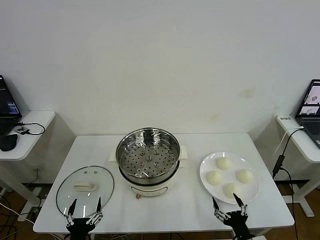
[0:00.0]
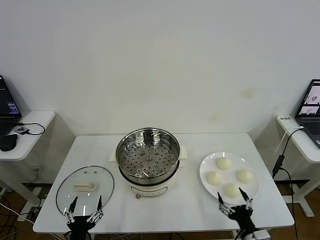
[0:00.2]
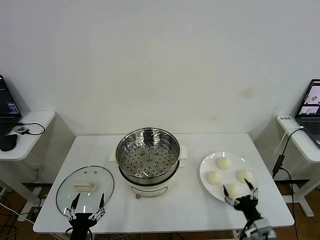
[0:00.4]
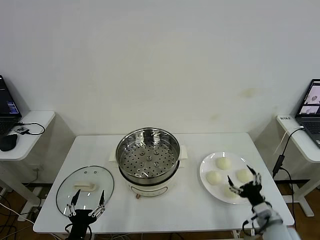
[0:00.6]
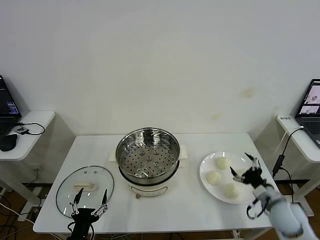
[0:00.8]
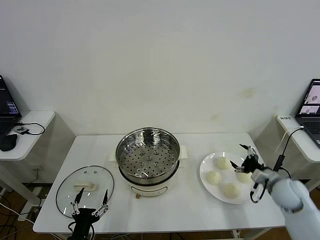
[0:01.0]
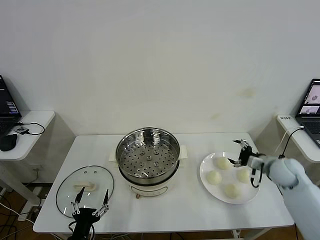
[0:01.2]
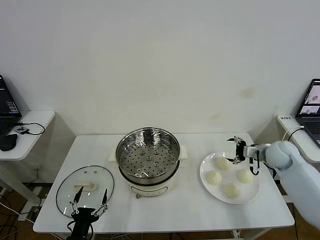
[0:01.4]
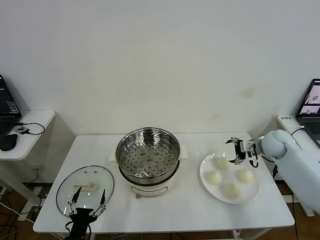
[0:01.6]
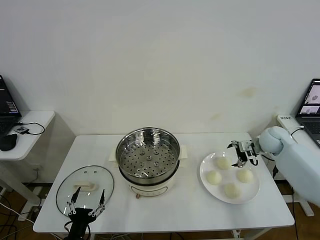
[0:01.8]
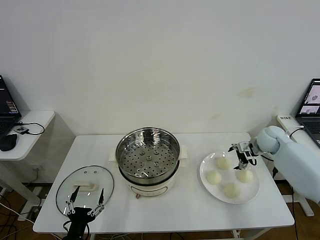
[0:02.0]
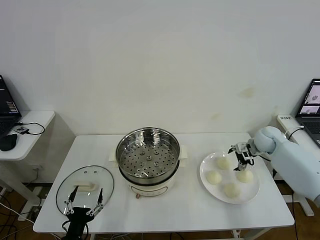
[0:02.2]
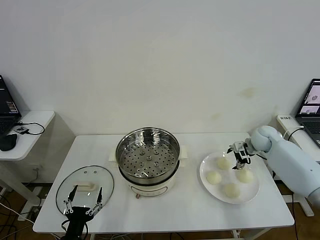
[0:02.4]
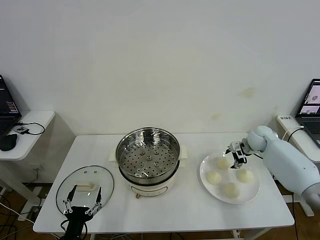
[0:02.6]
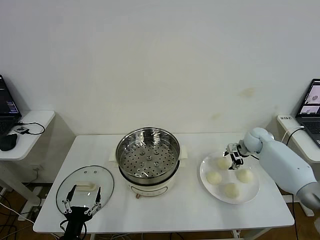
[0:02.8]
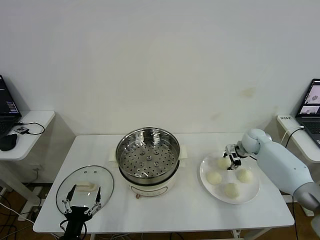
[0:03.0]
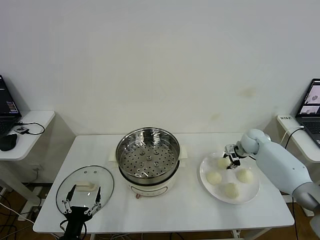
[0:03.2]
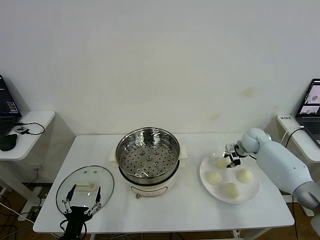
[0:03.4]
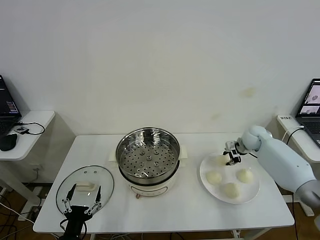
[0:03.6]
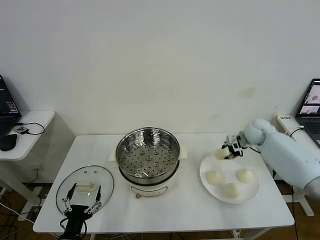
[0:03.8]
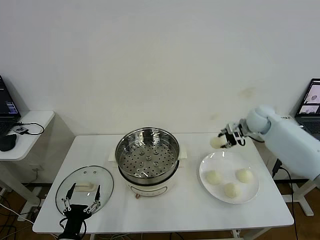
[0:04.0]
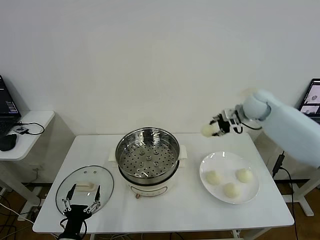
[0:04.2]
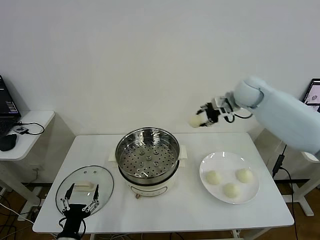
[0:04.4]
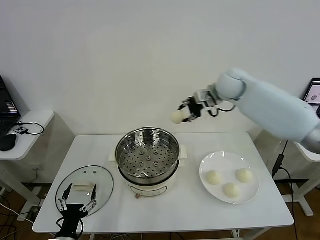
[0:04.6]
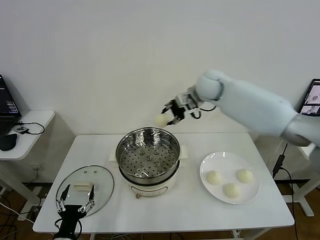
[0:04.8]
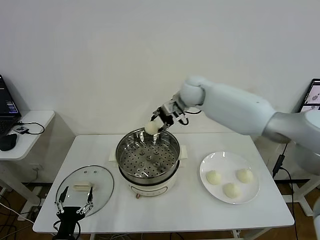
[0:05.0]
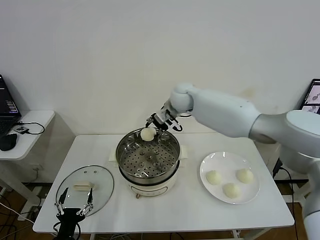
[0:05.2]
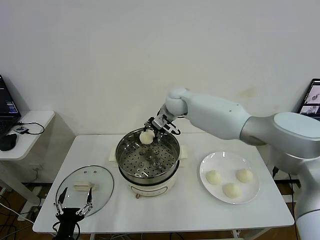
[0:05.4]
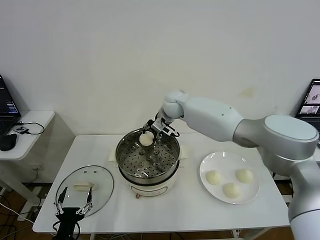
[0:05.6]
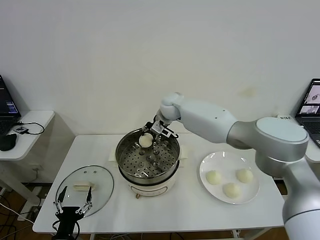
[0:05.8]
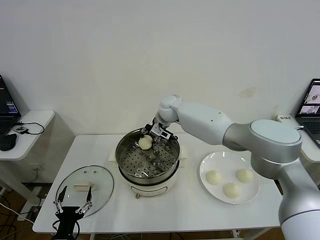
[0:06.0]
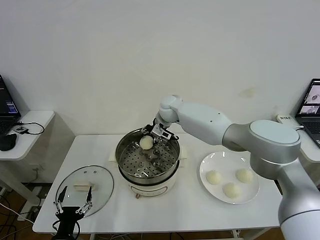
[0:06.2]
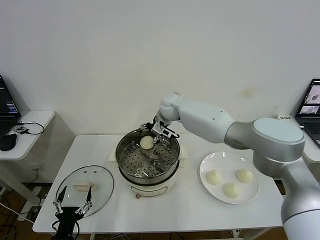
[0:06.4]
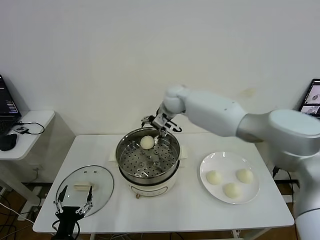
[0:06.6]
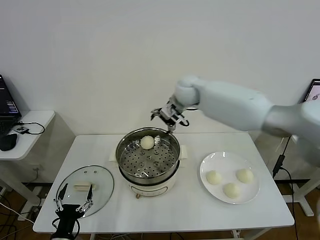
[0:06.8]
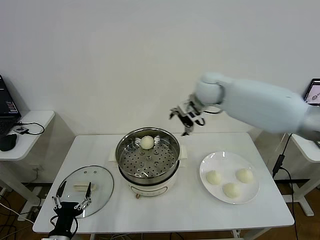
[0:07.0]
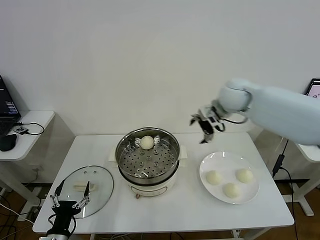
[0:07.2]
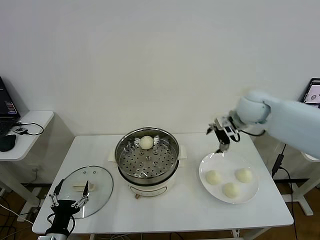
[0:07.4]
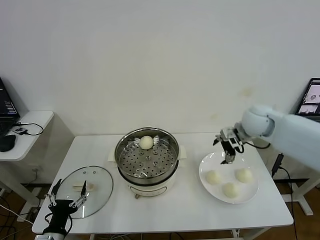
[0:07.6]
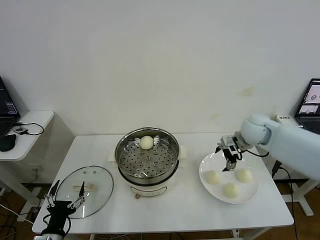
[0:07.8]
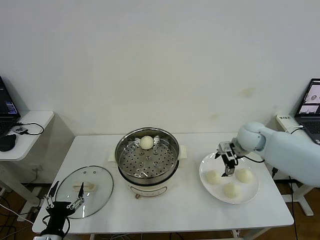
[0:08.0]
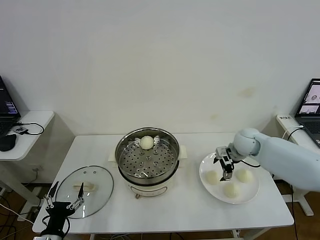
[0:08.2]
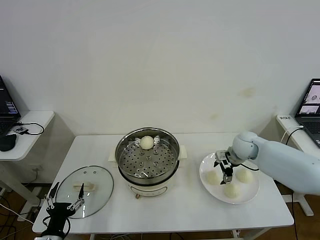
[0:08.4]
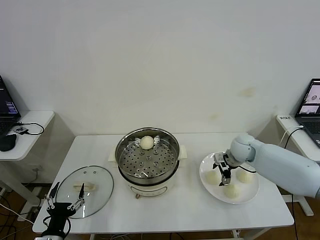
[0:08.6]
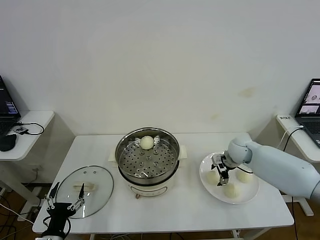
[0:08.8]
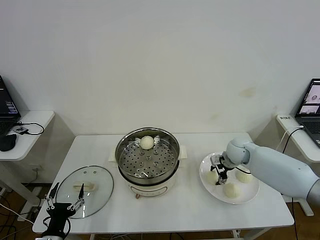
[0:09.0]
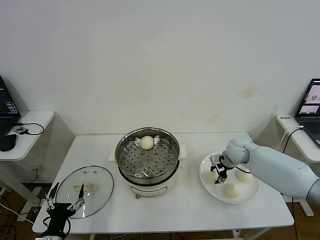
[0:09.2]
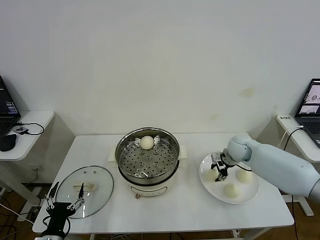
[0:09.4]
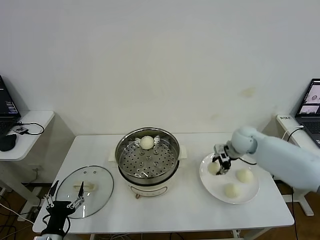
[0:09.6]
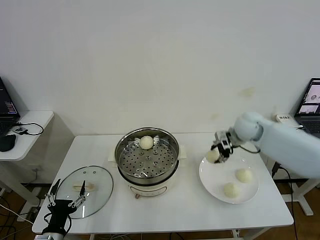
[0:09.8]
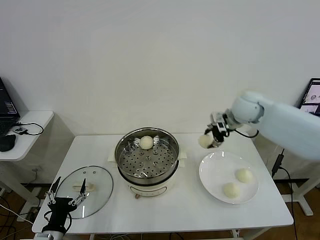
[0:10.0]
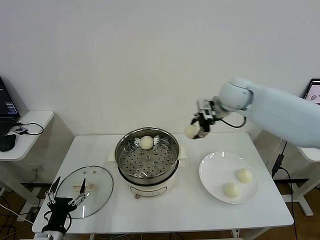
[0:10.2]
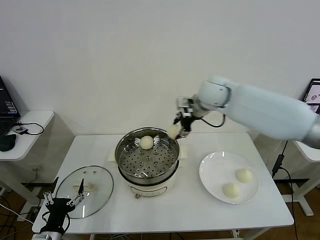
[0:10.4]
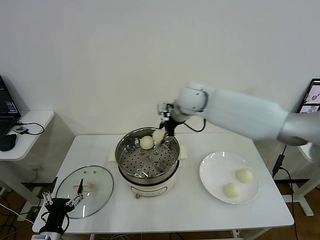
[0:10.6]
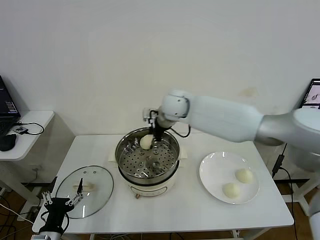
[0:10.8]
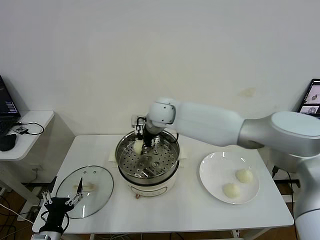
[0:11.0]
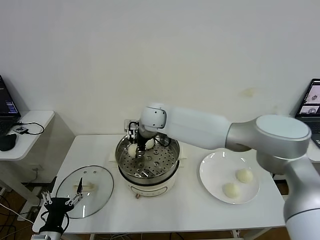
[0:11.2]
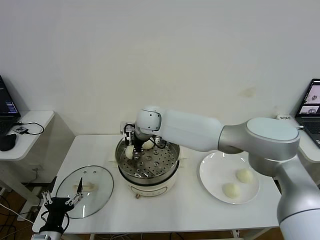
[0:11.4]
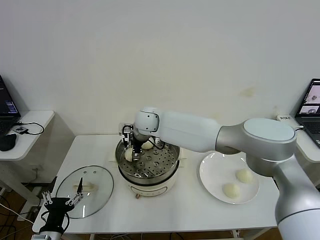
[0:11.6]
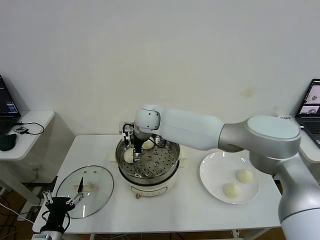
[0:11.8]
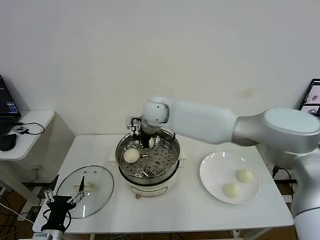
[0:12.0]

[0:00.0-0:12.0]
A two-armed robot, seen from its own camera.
Step, 0:00.0 to 0:03.4: Grasp the baozi in the plate with right gripper.
Step, 0:03.6 to 0:06.2: Place the baozi on the steamer with right gripper.
Step, 0:06.4 to 0:09.2: Grasp the baozi in the plate with right gripper.
Step, 0:09.4 to 0:11.6: Place the baozi on the steamer with right gripper.
0:01.6 to 0:03.0: The right gripper moves downward and forward, about 10 cm, and closes its fingers.
0:03.0 to 0:04.4: The right gripper travels upward and to the left by about 25 cm.
0:04.4 to 0:06.0: The right gripper travels to the left and downward by about 25 cm.
0:06.0 to 0:07.6: The right gripper is displaced to the right and backward by approximately 30 cm, and opens its fingers.
0:07.6 to 0:09.0: The right gripper goes some 15 cm downward, and closes up.
0:09.0 to 0:10.4: The right gripper shifts some 30 cm upward and to the left.
0:10.4 to 0:12.0: The right gripper is displaced to the left by about 15 cm, and opens.

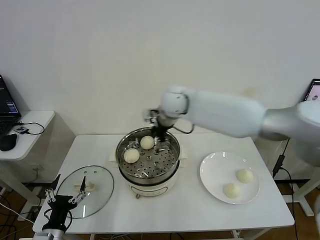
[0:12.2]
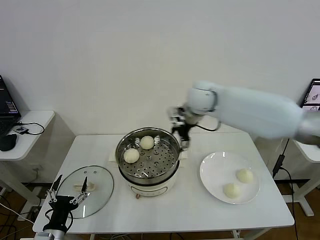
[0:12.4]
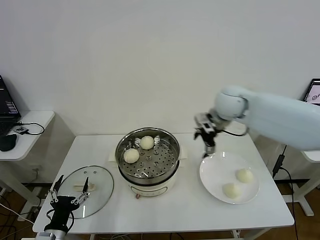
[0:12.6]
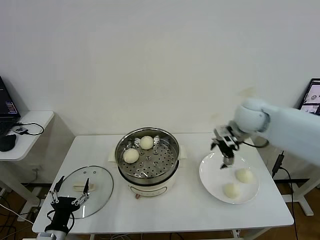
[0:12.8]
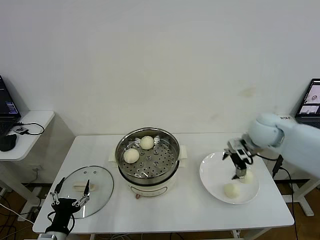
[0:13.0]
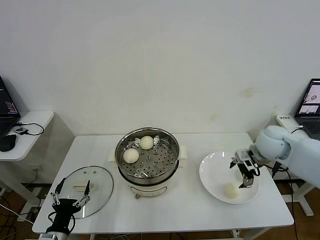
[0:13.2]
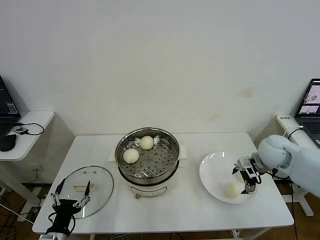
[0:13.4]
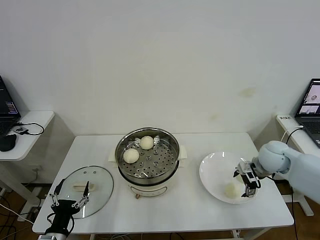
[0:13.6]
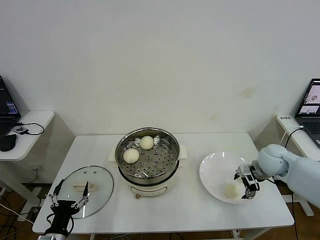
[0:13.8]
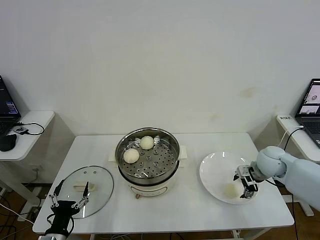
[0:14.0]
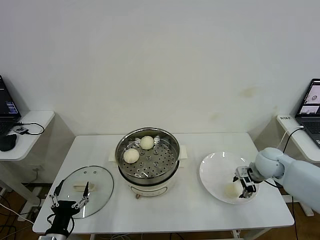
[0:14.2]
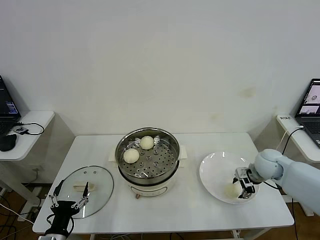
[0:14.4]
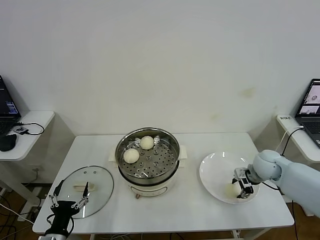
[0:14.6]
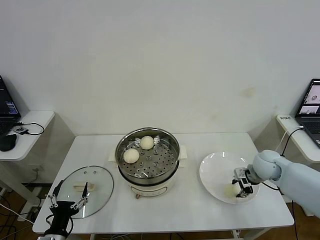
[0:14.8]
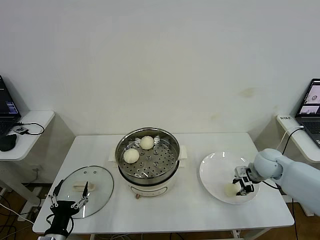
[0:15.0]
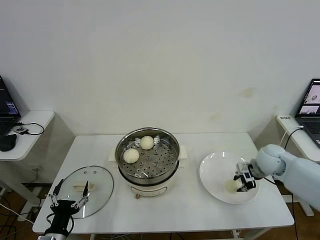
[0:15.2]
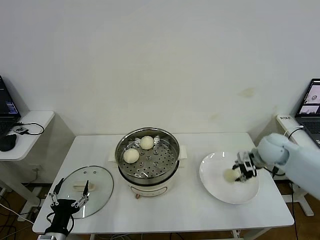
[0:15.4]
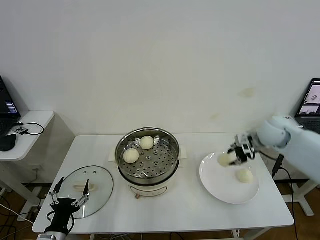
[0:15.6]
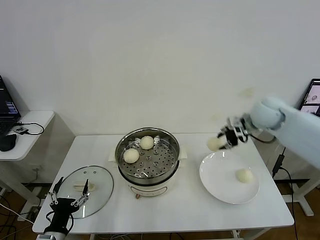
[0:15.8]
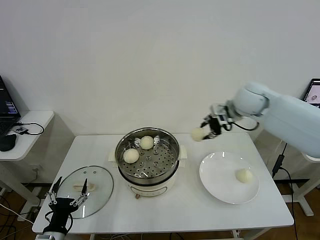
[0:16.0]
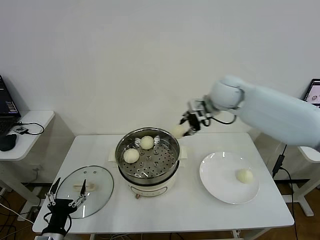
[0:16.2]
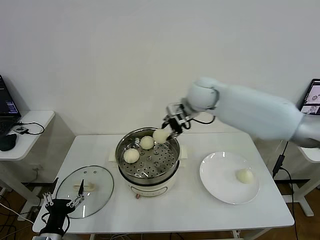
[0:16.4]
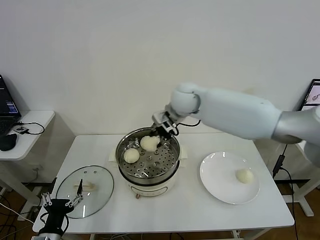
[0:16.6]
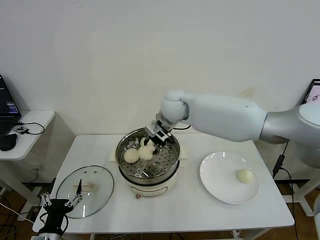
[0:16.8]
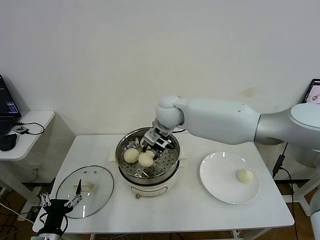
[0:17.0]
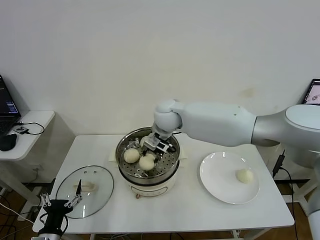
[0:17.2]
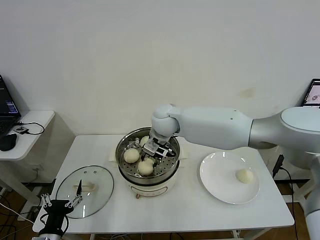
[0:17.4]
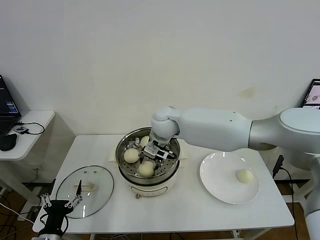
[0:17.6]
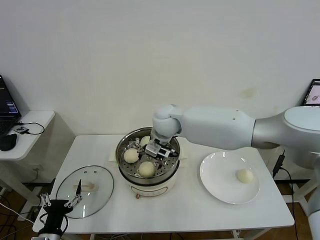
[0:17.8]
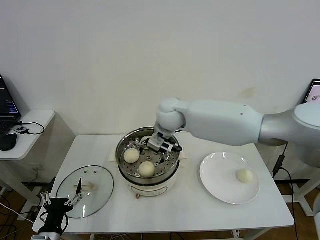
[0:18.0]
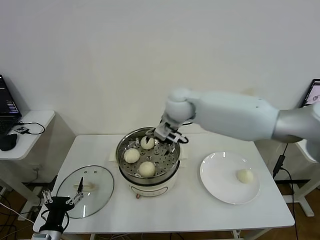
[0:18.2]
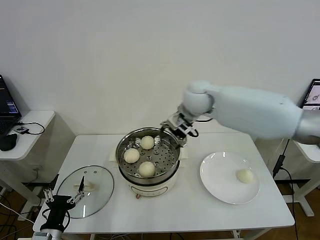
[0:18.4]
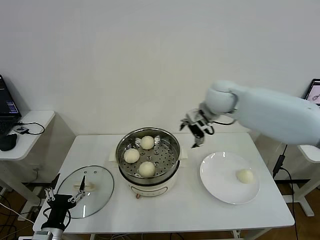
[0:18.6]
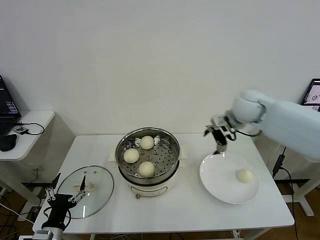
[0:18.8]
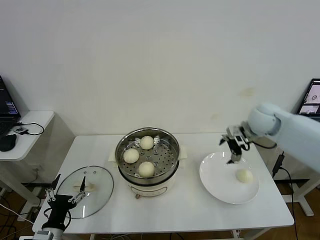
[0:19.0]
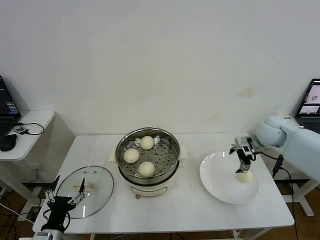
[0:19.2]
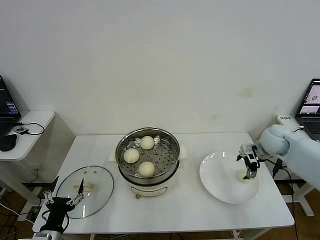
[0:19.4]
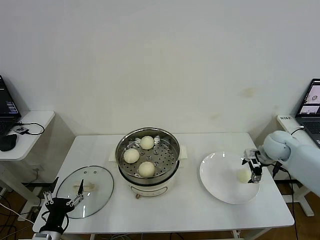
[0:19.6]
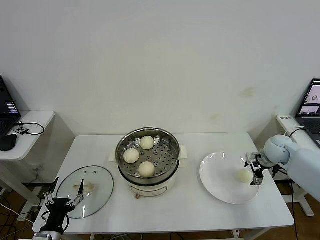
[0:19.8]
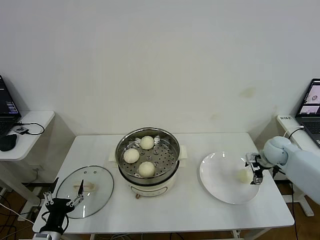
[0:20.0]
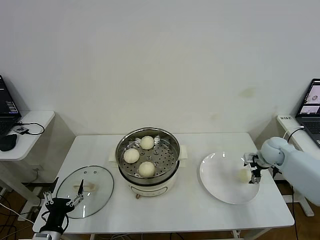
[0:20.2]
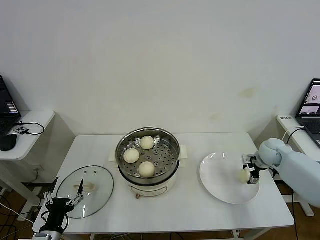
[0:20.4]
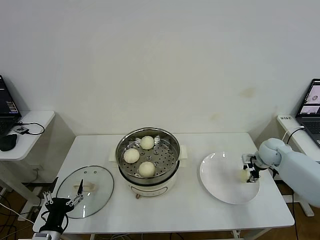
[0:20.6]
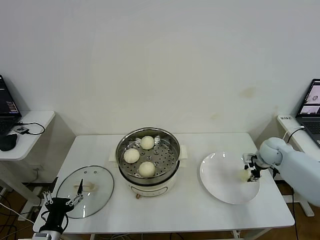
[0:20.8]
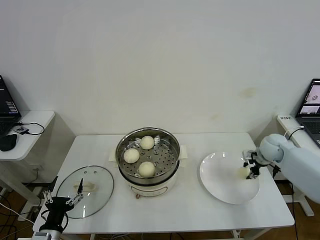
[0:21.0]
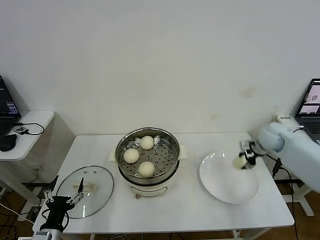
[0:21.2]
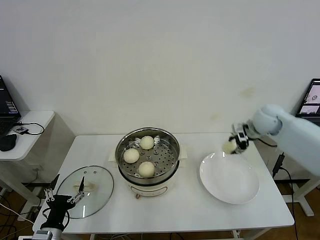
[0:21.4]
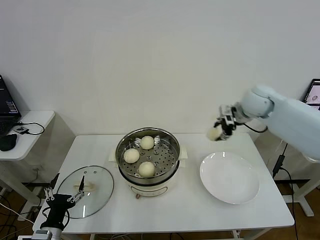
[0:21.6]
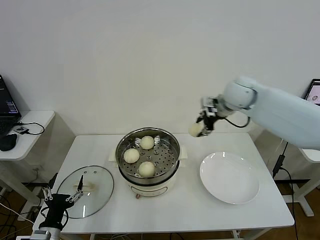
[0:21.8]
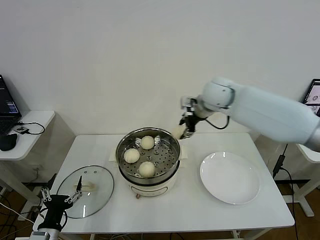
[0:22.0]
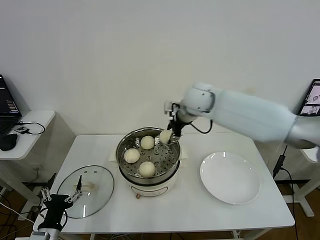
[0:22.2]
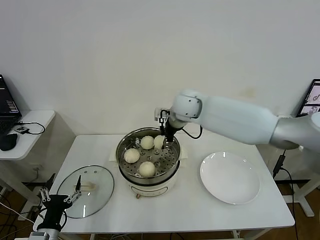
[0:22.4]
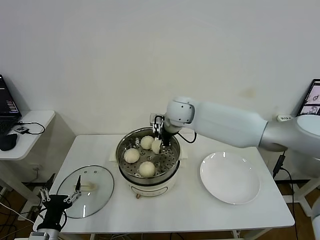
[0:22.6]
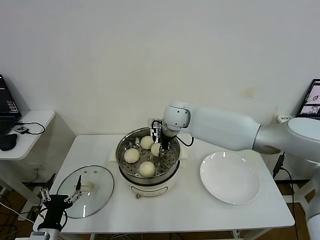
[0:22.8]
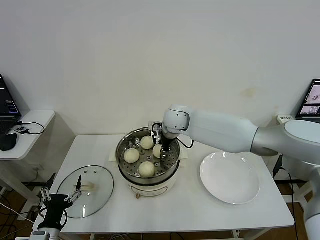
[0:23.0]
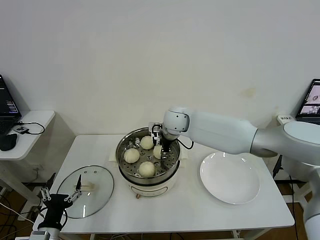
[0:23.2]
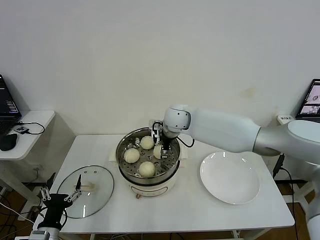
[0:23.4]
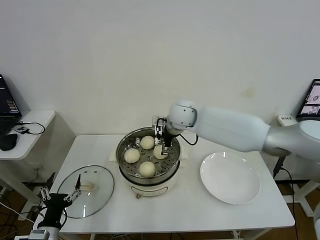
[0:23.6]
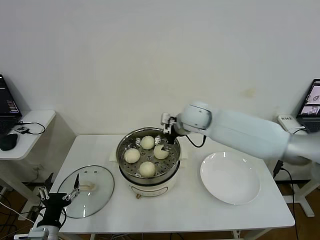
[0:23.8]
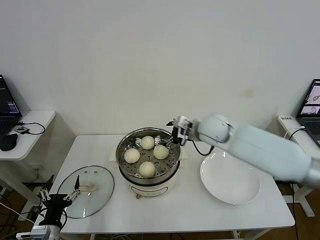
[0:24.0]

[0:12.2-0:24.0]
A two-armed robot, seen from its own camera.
Step, 0:12.2 to 0:15.0: Grasp the baozi in the plate with right gripper.
Step, 0:15.2 to 0:17.8: Place the baozi on the steamer with right gripper.
Step, 0:18.0 to 0:20.8: Grasp the baozi in the plate with right gripper.
Step, 0:21.0 to 0:23.4: Place the baozi on the steamer with right gripper.
0:12.2 to 0:13.6: The right gripper goes roughly 35 cm to the right and downward.
0:13.6 to 0:15.2: The right gripper closes.
0:15.2 to 0:16.6: The right gripper travels to the left and upward by some 35 cm.
0:16.6 to 0:18.2: The right gripper opens its fingers.
0:18.2 to 0:19.6: The right gripper shifts approximately 35 cm to the right and downward.
0:19.6 to 0:21.0: The right gripper closes its fingers.
0:21.0 to 0:22.6: The right gripper moves to the left, approximately 35 cm.
0:22.6 to 0:24.0: The right gripper shifts about 10 cm to the right and backward, and opens its fingers.
